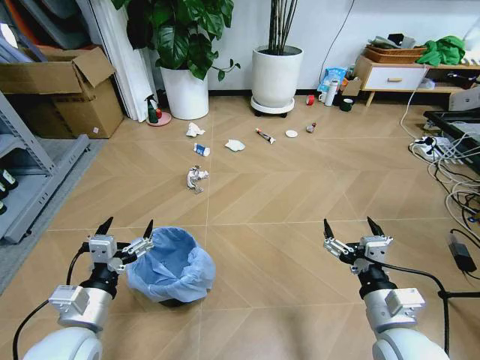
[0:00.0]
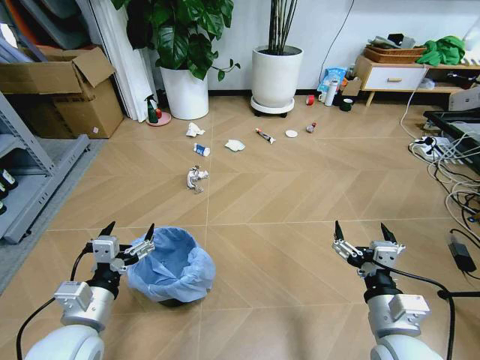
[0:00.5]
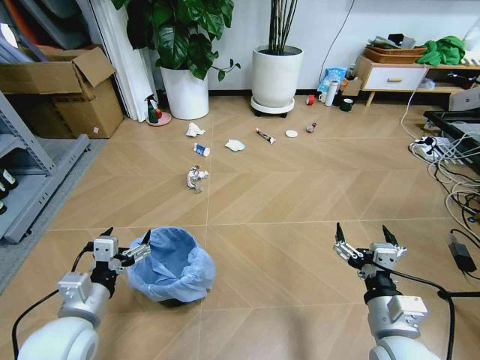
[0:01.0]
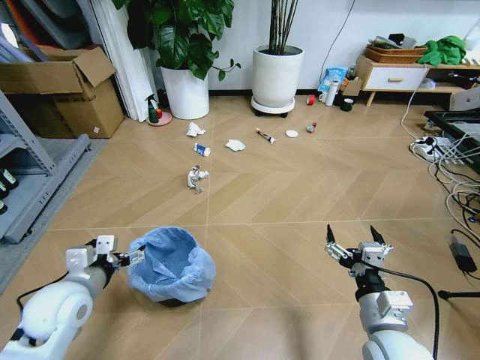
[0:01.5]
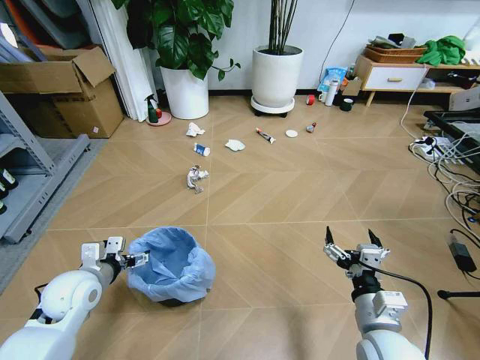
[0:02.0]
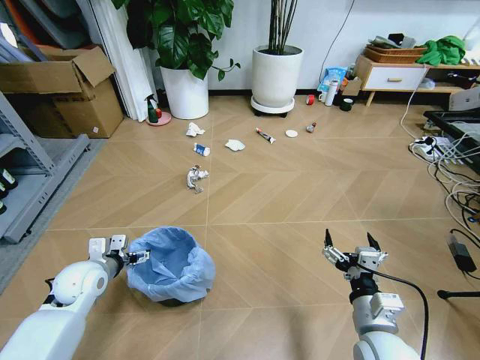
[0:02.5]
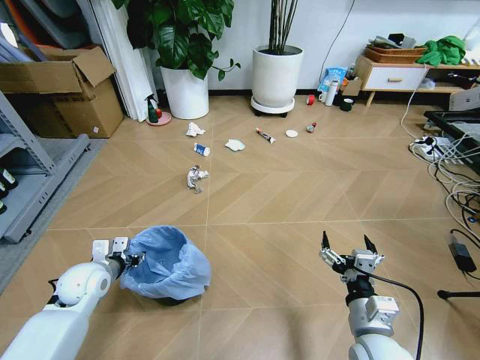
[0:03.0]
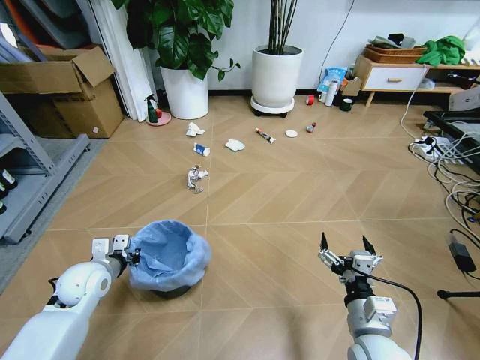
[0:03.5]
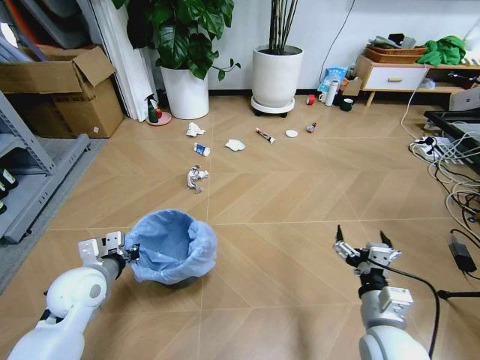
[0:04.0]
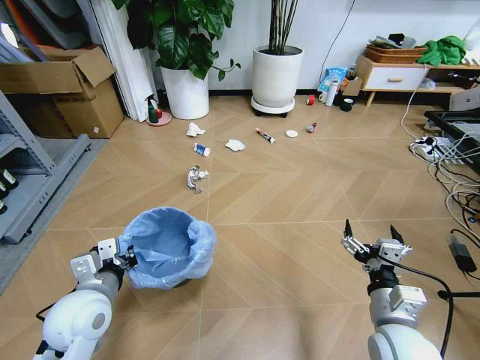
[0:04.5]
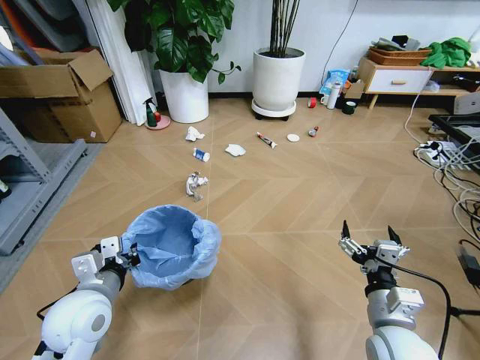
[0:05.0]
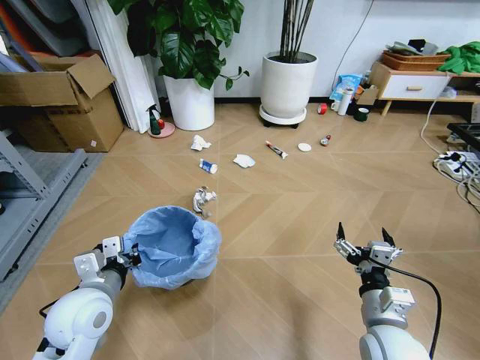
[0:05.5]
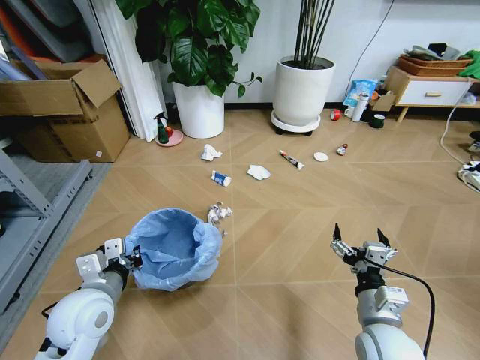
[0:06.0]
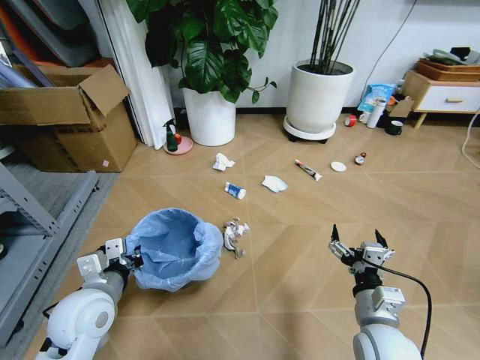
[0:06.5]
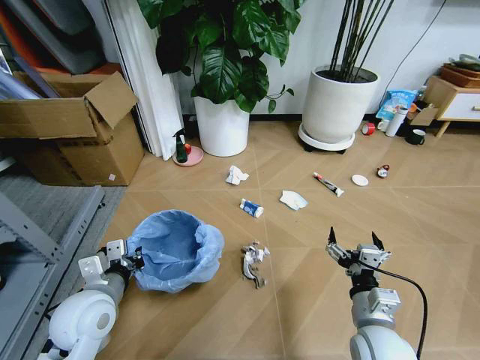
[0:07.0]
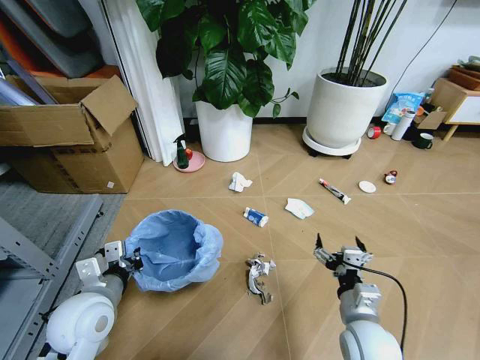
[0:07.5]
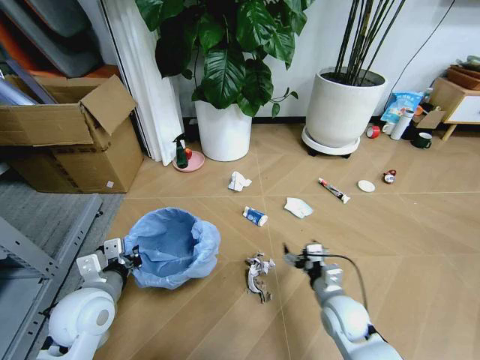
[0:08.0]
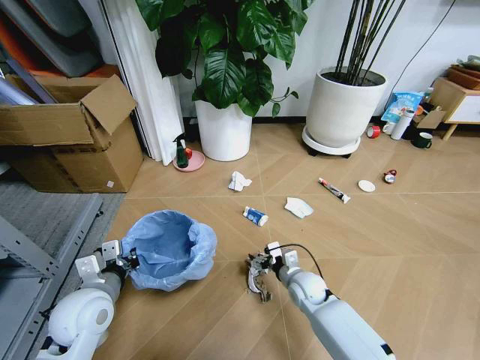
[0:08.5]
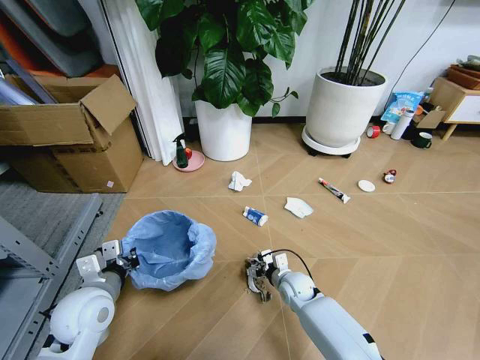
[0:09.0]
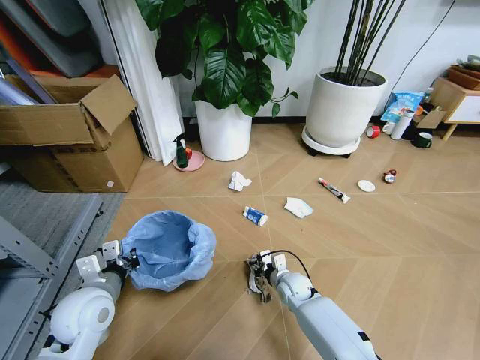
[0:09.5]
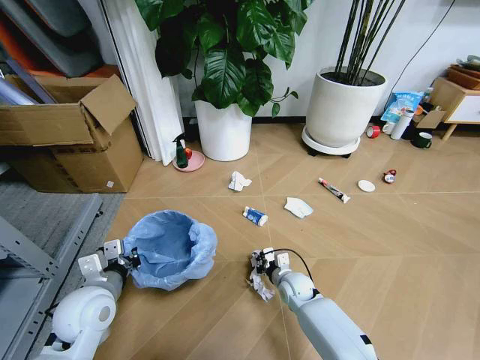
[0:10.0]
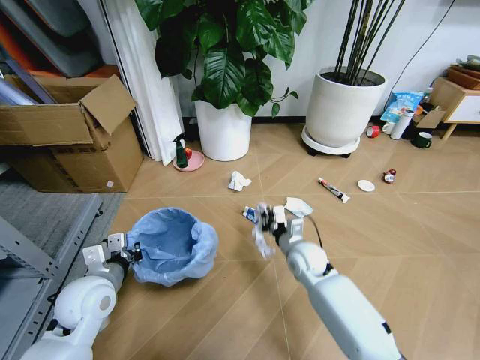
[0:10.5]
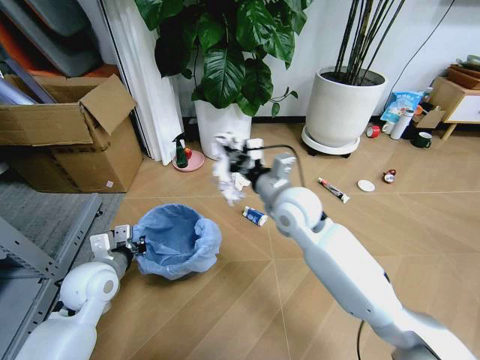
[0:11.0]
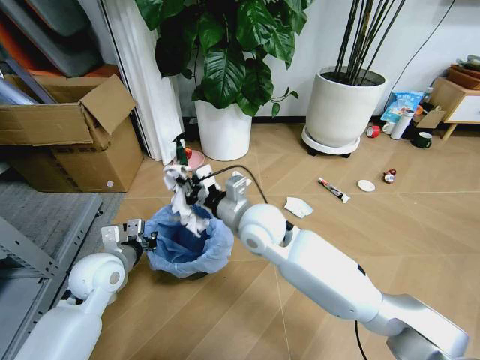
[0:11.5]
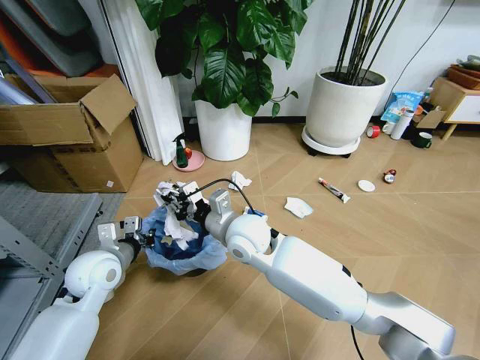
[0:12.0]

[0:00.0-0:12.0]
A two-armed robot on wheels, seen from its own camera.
Task of the whole recording: Pick up the trash bin and place the garbage on the floor into it.
0:02.0 to 0:04.0: The left gripper closes up.
0:04.0 to 0:06.0: The left gripper heads backward, covering roughly 5 cm.
0:06.0 to 0:08.0: The right gripper heads downward and forward, covering some 15 cm.
0:08.0 to 0:10.0: The right gripper shifts roughly 15 cm forward, downward and to the left, and closes up.
0:10.0 to 0:12.0: The left gripper heads forward, covering approximately 5 cm. Meanwhile the right gripper heads upward and to the left, covering about 30 cm.

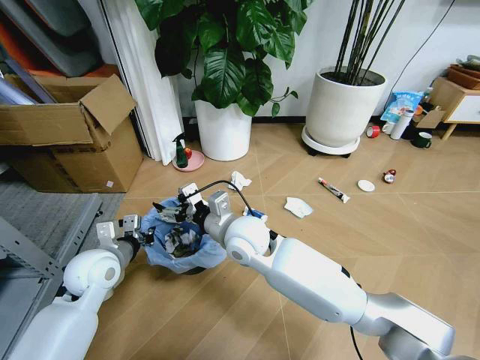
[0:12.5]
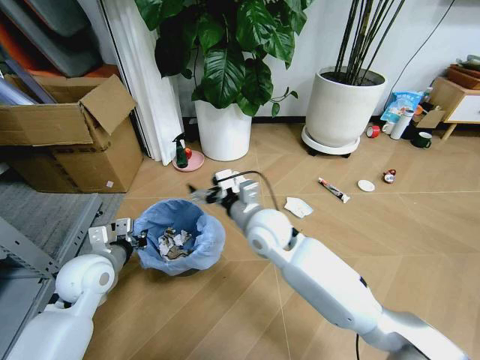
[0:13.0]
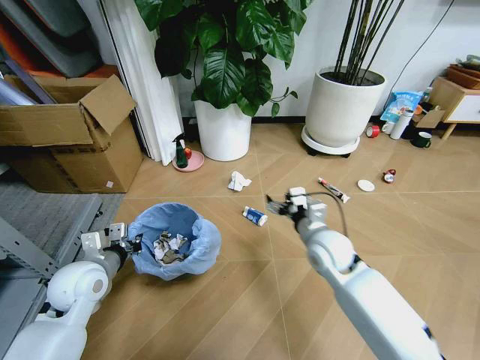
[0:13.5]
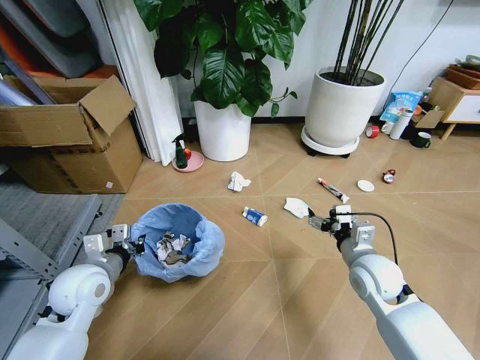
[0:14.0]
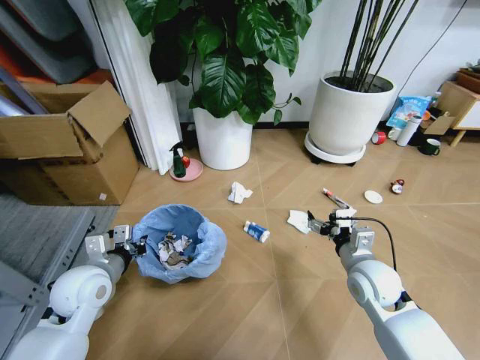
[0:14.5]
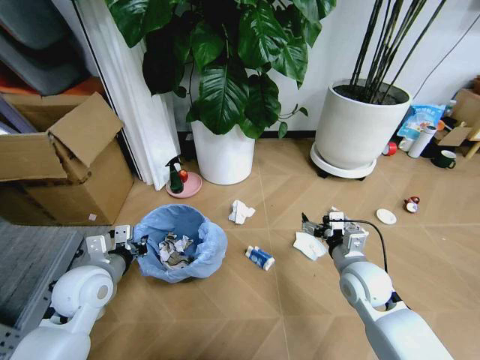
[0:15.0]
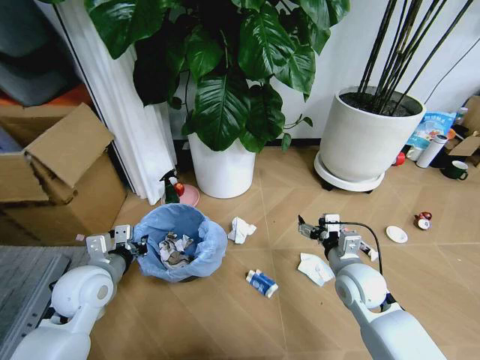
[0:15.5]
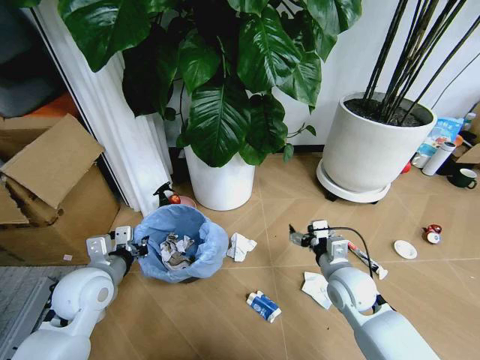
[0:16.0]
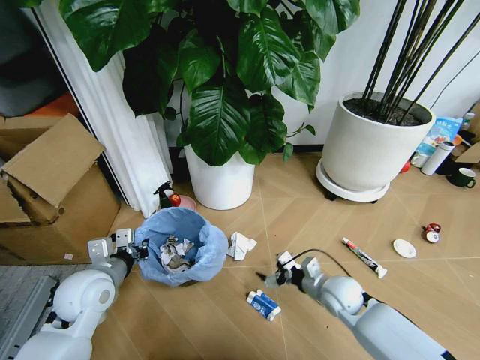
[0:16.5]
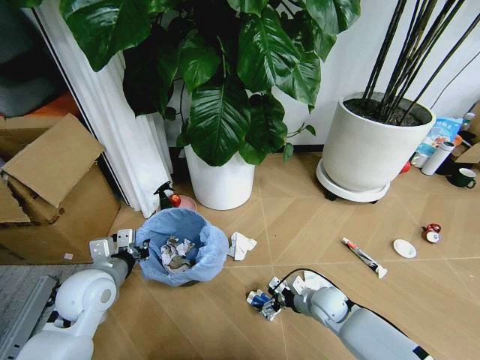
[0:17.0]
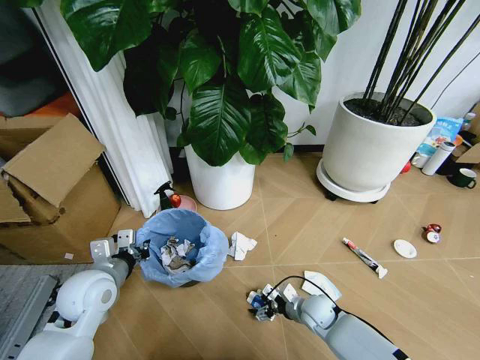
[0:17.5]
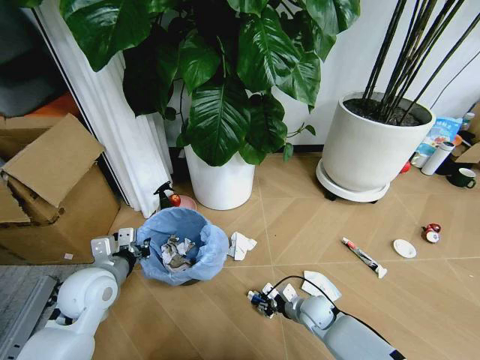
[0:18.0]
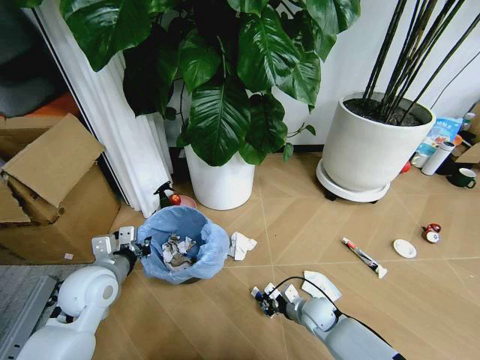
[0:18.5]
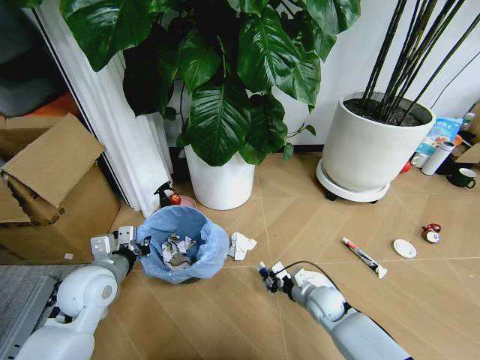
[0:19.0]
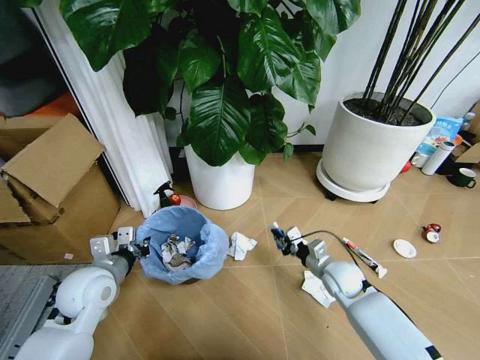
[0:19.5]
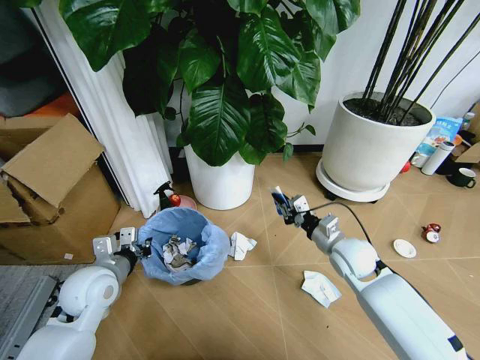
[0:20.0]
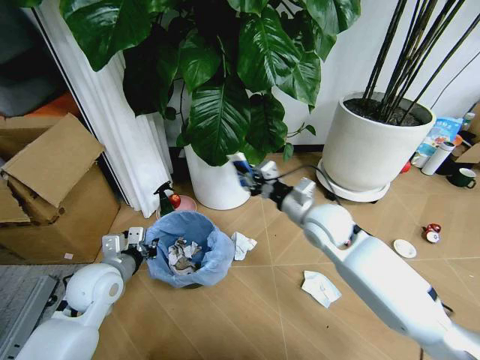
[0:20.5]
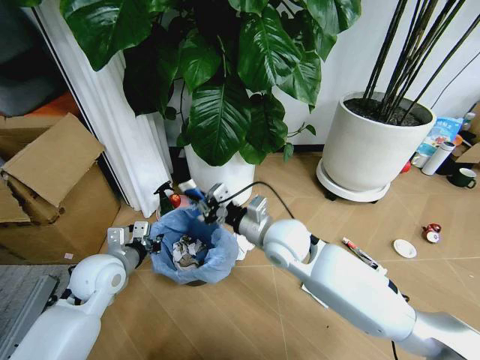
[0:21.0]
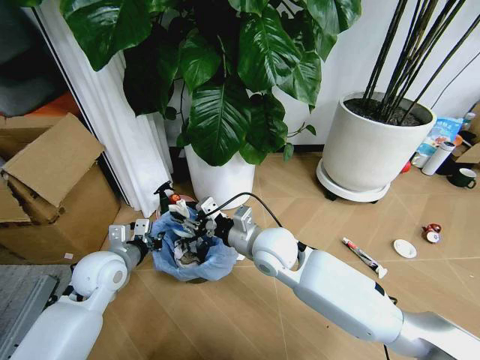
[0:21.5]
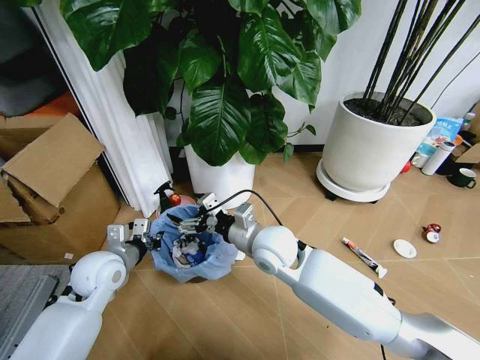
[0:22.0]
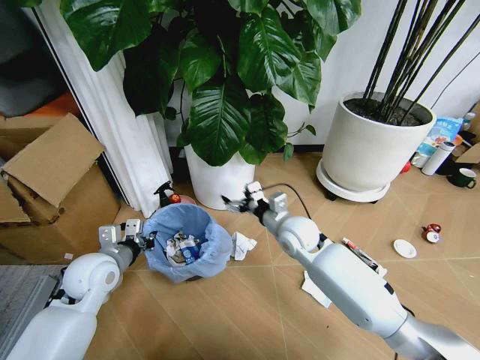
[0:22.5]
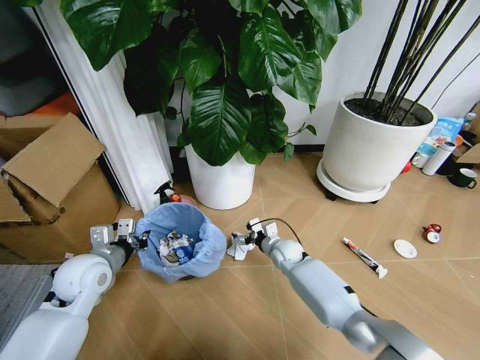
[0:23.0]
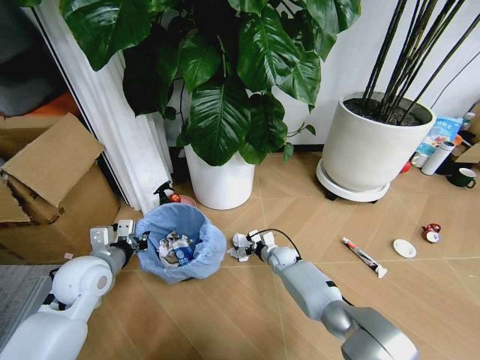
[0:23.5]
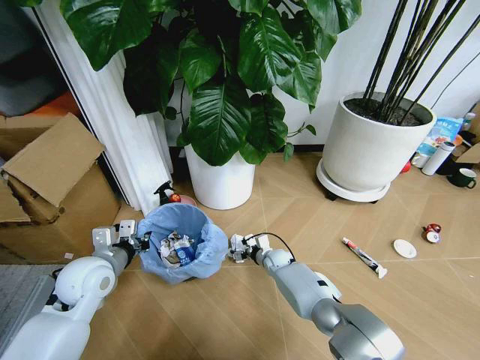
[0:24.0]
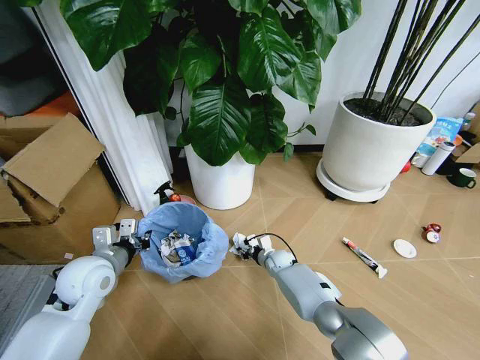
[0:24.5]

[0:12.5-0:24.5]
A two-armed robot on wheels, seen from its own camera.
Task of the whole recording: Pick up the trash bin and place the garbage on the floor into it.
0:12.5 to 0:14.5: The right gripper goes roughly 25 cm to the right.
0:14.5 to 0:16.5: The right gripper shifts some 10 cm downward.
0:16.5 to 0:18.5: The right gripper is displaced downward by about 10 cm, and closes up.
0:18.5 to 0:20.5: The right gripper travels upward by roughly 30 cm.
0:20.5 to 0:22.5: The right gripper goes approximately 10 cm downward, goes to the left and returns, some 10 cm each way, and opens up.
0:22.5 to 0:24.5: The right gripper is displaced downward by some 25 cm, and closes.

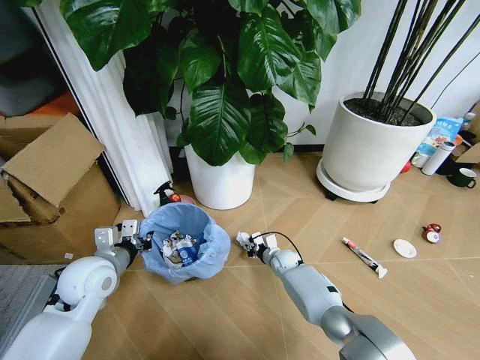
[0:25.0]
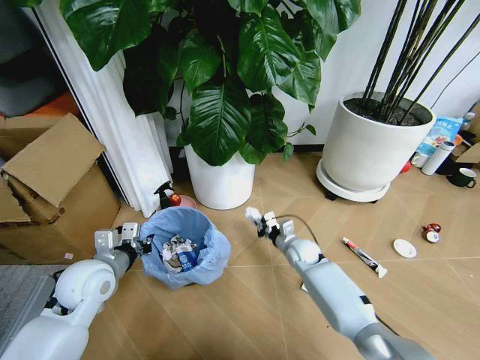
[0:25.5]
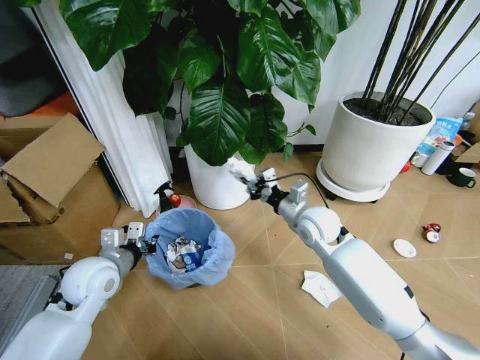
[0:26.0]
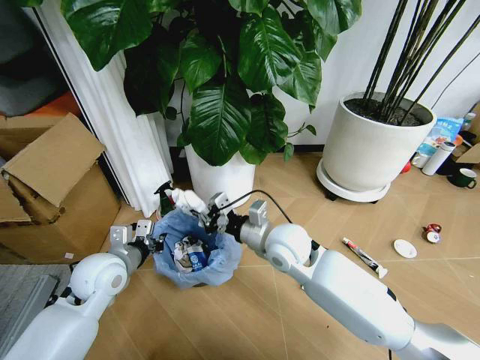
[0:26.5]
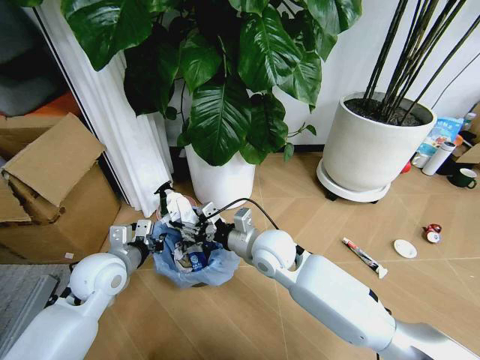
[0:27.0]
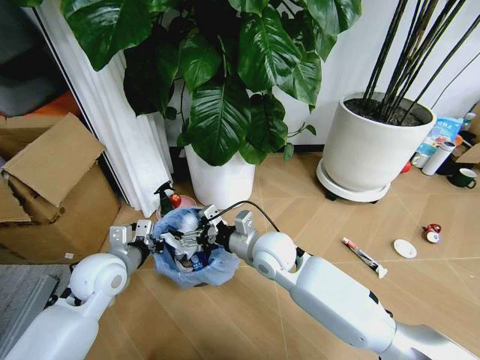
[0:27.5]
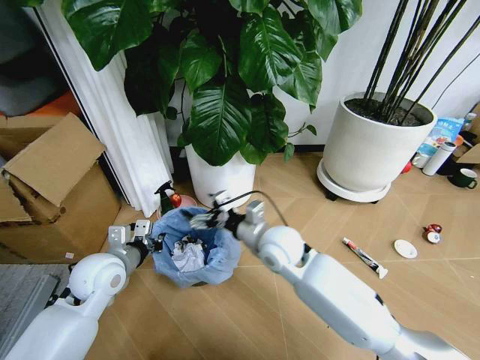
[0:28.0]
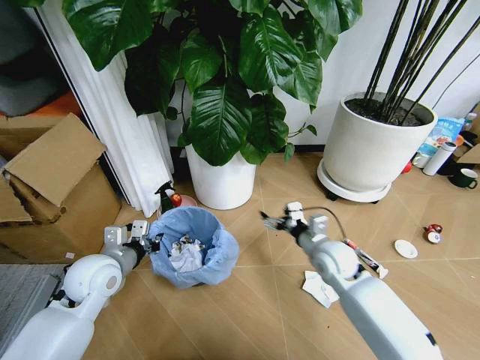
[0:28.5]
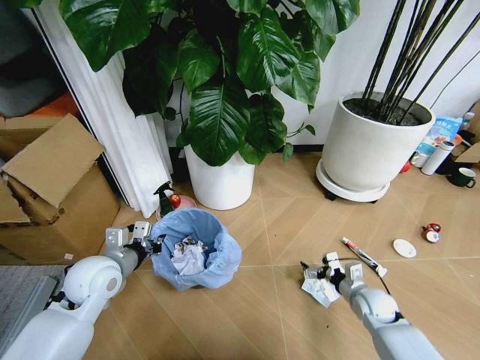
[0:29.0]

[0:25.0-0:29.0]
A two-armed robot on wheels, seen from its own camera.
Task of the whole recording: Pick up the trash bin and place the garbage on the floor into it.
0:25.0 to 0:27.0: The right gripper goes some 25 cm upward, and opens up.
0:27.0 to 0:29.0: The right gripper shifts about 35 cm to the right and downward, and opens.
